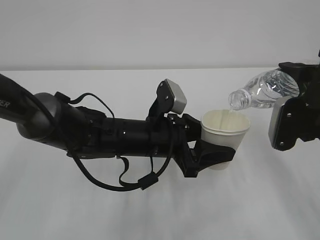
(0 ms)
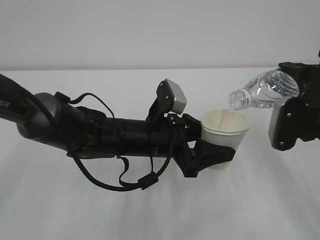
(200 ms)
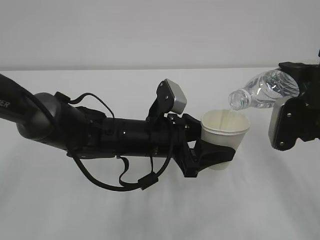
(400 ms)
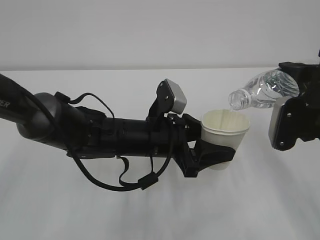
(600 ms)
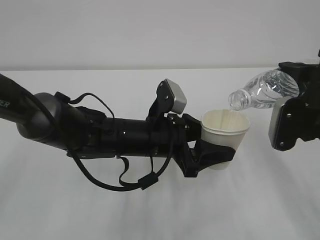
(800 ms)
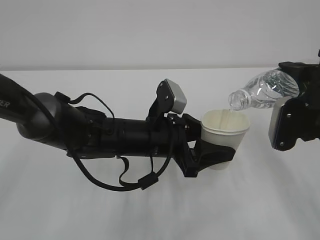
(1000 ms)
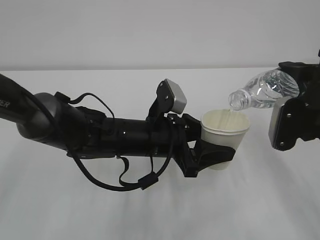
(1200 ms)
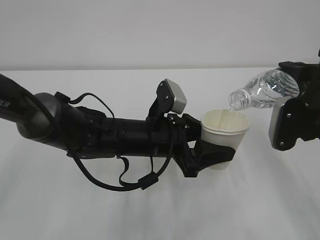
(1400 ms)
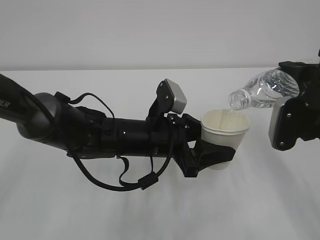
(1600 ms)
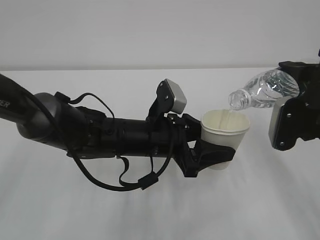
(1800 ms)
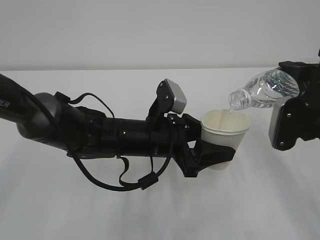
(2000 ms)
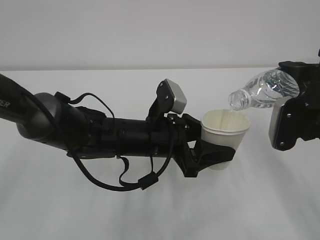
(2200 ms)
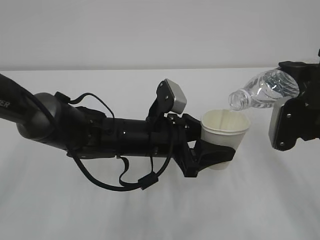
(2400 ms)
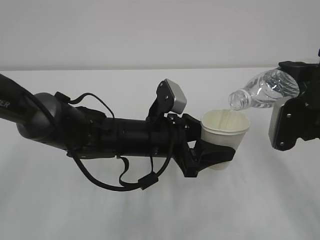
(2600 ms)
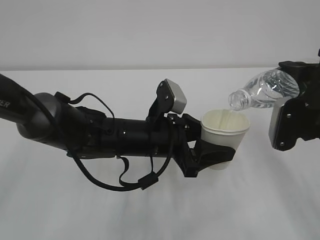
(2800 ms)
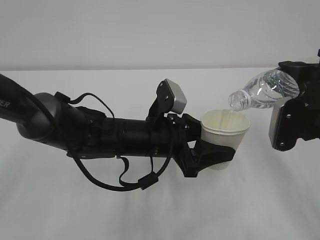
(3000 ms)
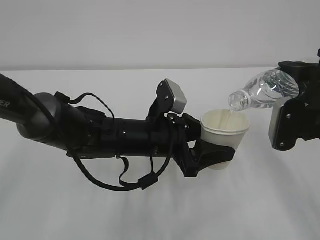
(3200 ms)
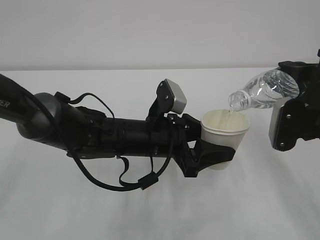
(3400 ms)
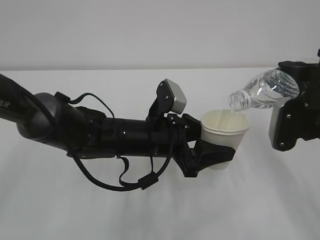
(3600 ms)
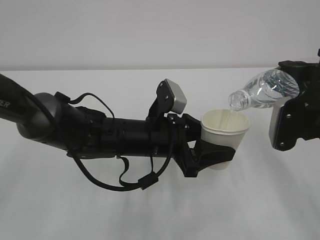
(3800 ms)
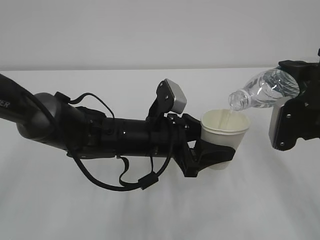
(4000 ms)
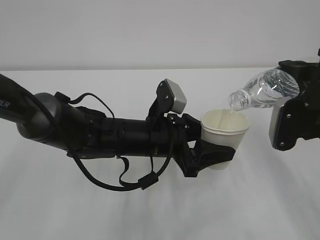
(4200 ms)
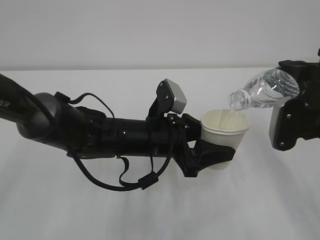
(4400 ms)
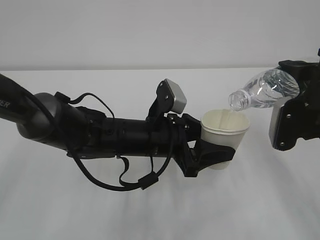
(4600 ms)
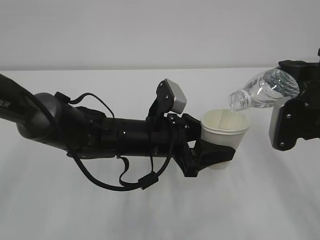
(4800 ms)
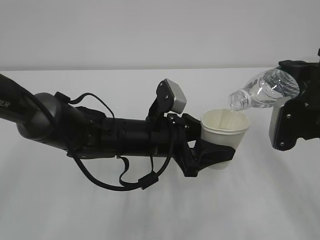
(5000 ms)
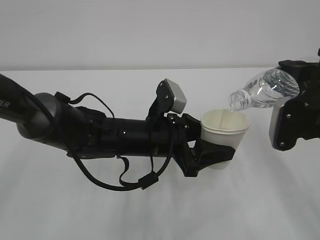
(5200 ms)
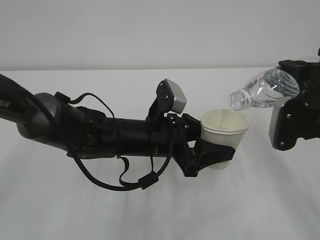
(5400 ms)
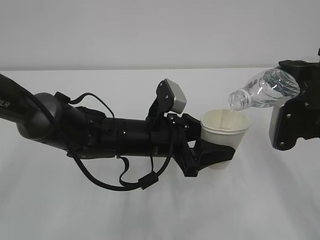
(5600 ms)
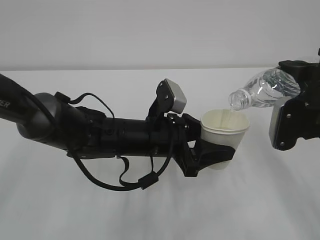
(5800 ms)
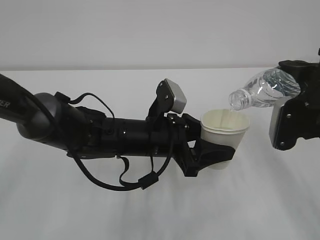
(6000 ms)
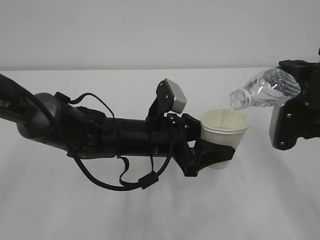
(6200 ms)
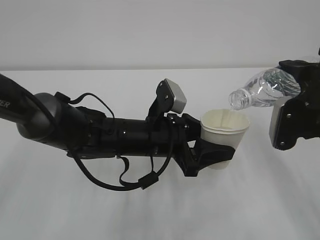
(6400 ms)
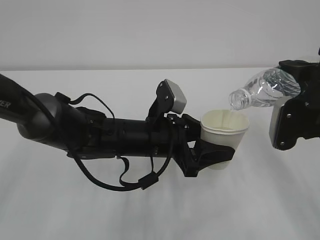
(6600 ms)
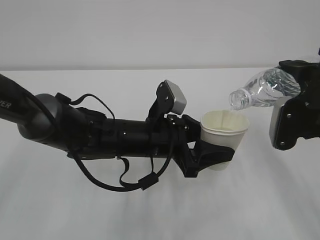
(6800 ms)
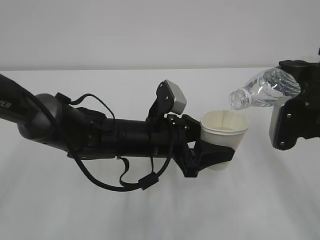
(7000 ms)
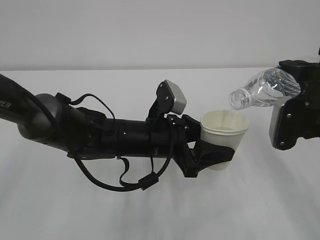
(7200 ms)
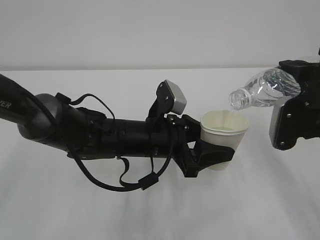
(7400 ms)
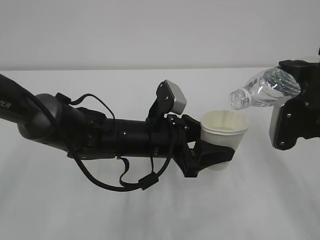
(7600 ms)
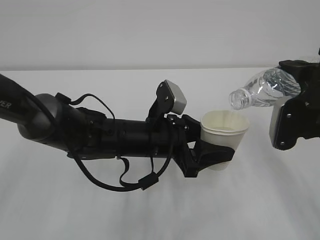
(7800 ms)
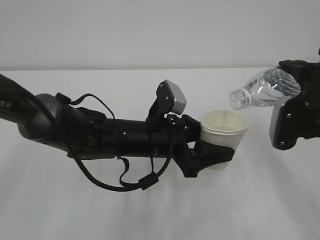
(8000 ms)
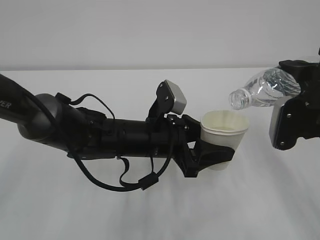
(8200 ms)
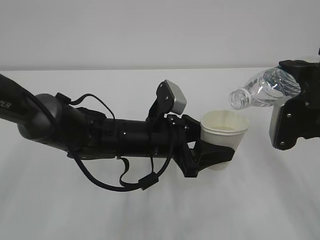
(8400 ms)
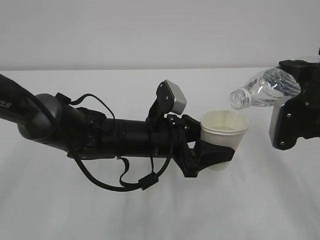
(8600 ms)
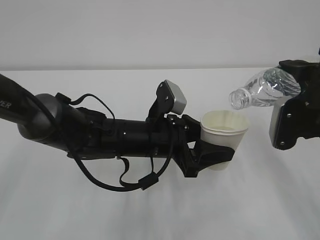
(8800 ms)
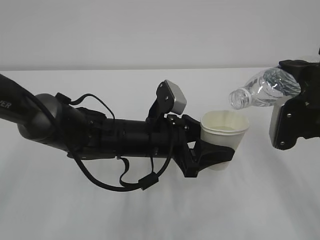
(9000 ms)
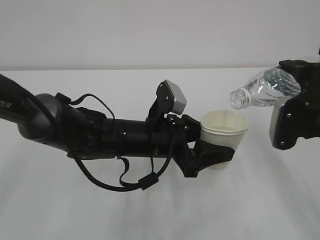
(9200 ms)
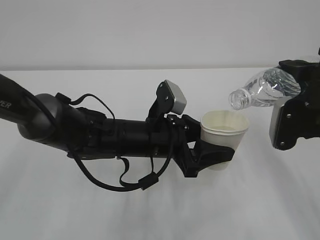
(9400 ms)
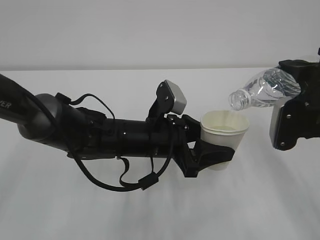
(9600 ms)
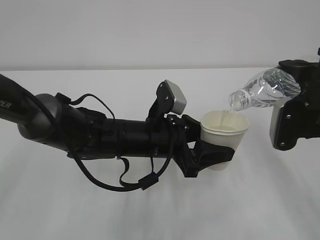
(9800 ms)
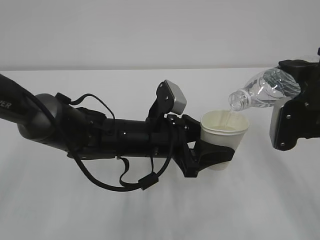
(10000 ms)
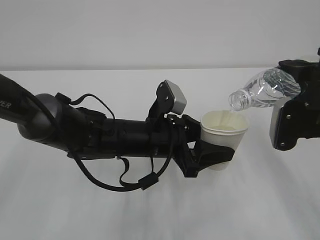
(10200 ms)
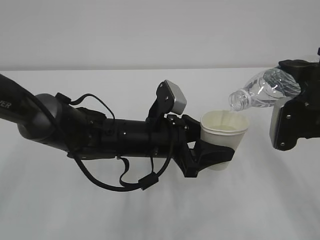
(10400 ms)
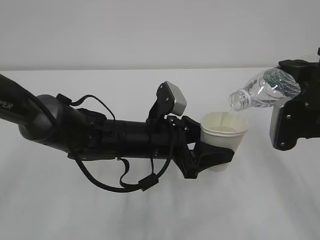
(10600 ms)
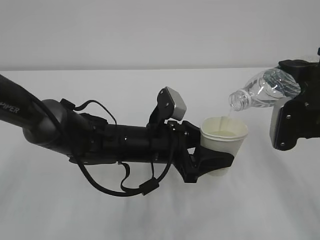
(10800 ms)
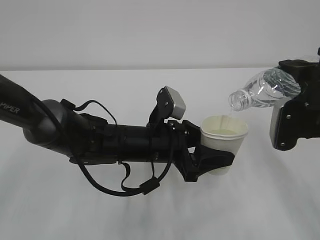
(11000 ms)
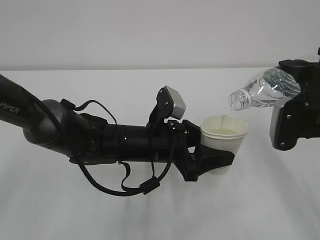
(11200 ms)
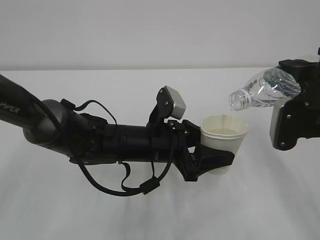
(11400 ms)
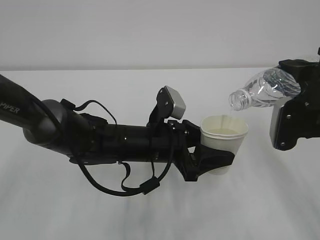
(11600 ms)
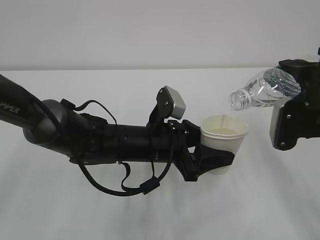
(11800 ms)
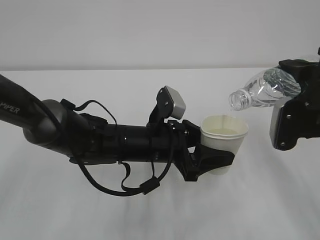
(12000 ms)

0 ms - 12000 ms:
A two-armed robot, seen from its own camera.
0 ms - 12000 ms: Both grippers stay put.

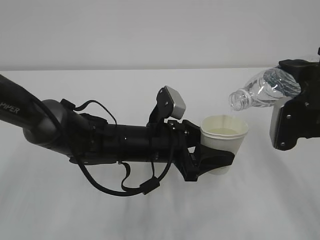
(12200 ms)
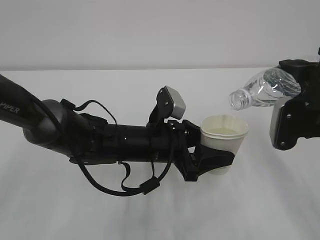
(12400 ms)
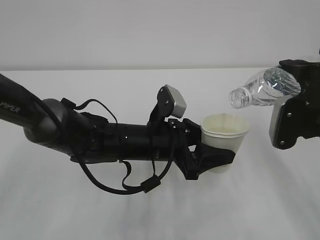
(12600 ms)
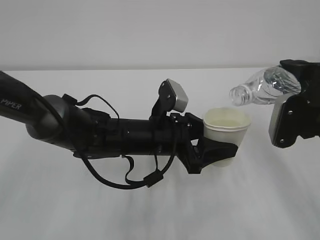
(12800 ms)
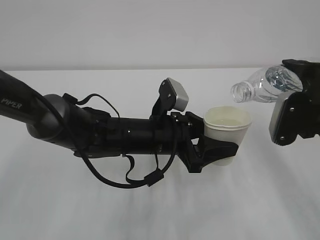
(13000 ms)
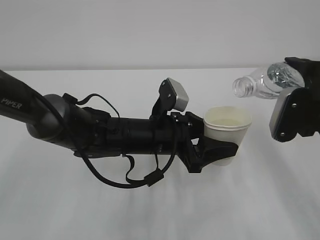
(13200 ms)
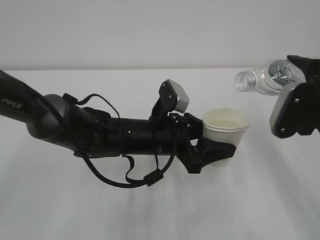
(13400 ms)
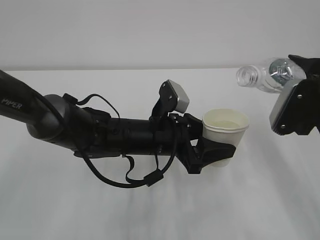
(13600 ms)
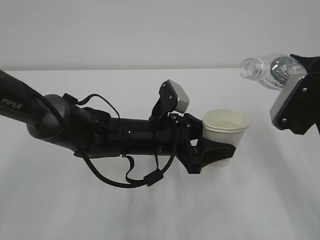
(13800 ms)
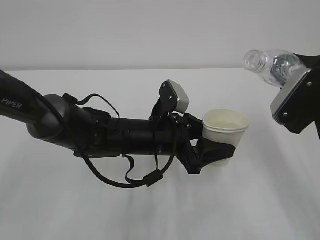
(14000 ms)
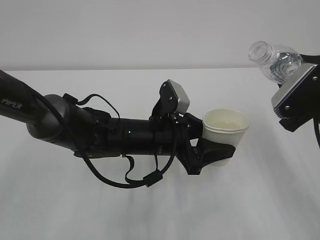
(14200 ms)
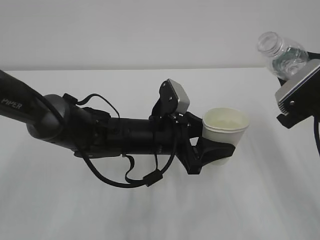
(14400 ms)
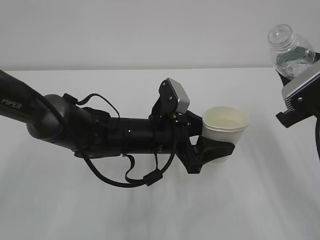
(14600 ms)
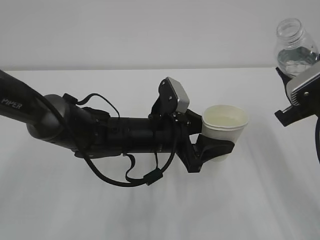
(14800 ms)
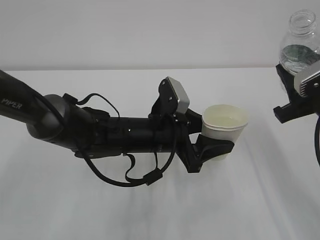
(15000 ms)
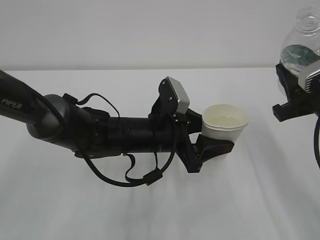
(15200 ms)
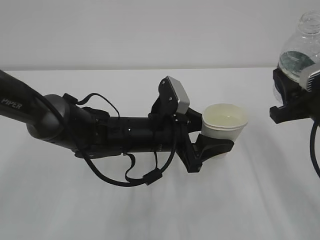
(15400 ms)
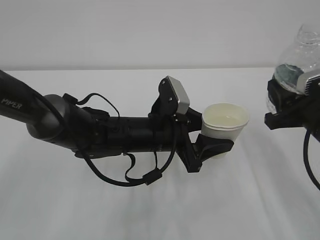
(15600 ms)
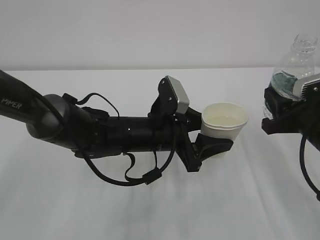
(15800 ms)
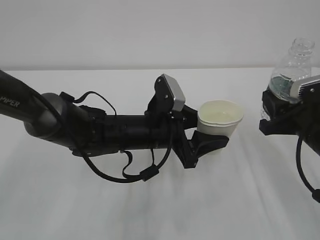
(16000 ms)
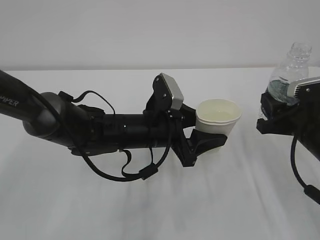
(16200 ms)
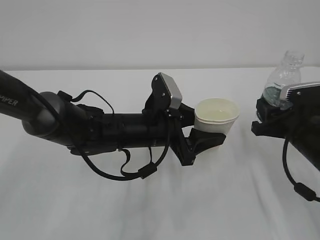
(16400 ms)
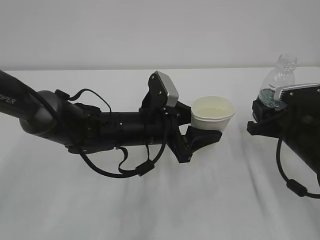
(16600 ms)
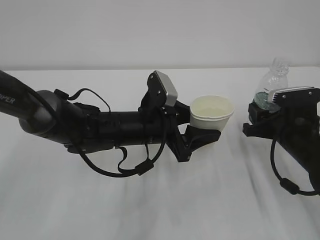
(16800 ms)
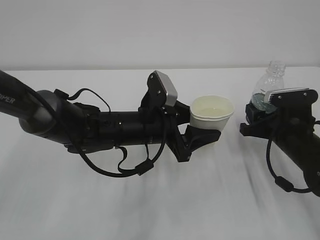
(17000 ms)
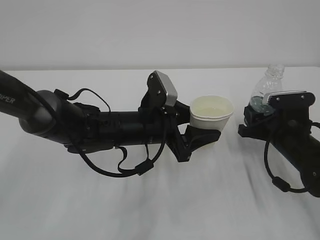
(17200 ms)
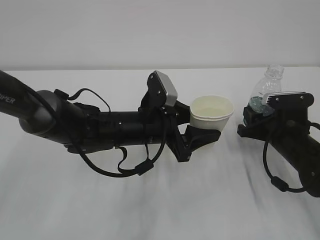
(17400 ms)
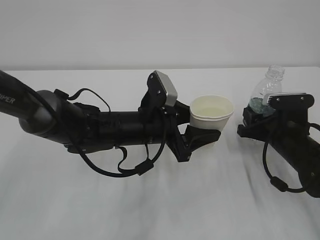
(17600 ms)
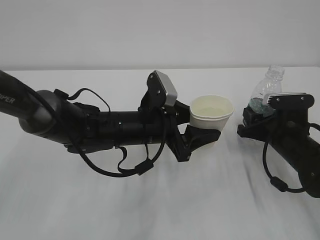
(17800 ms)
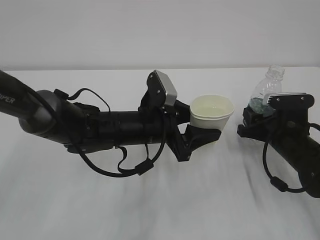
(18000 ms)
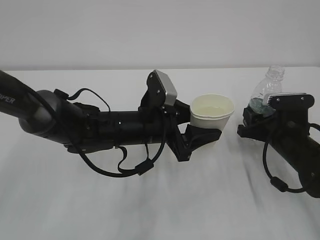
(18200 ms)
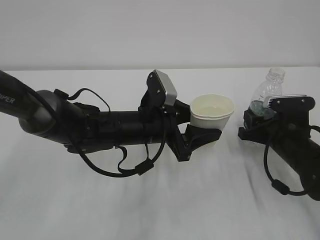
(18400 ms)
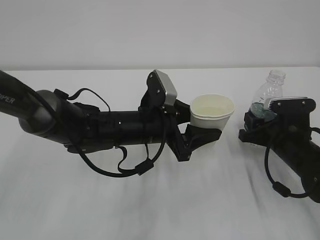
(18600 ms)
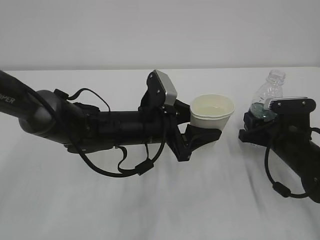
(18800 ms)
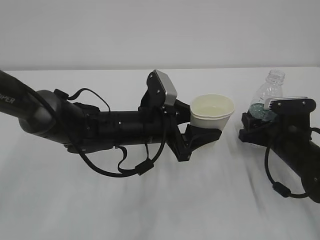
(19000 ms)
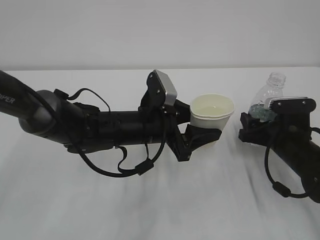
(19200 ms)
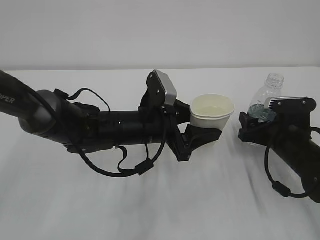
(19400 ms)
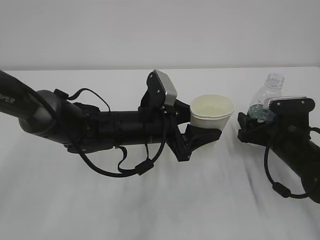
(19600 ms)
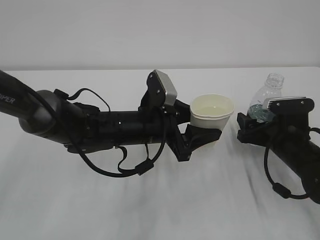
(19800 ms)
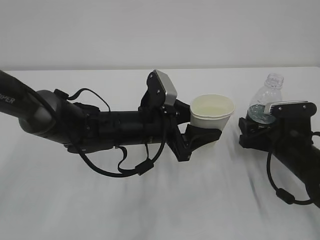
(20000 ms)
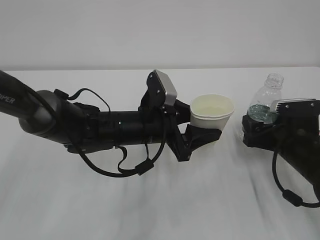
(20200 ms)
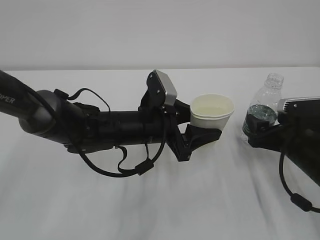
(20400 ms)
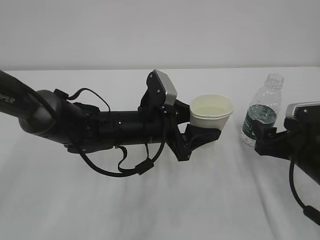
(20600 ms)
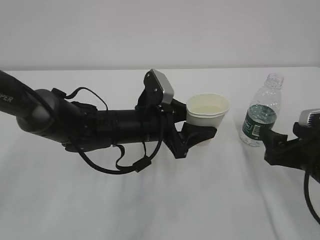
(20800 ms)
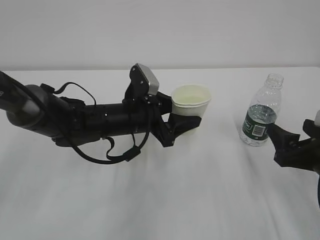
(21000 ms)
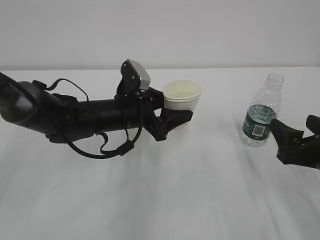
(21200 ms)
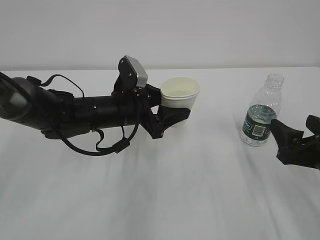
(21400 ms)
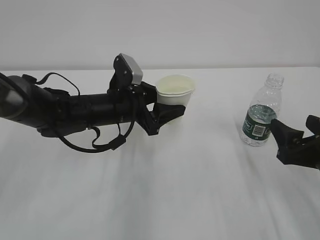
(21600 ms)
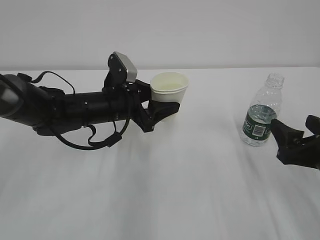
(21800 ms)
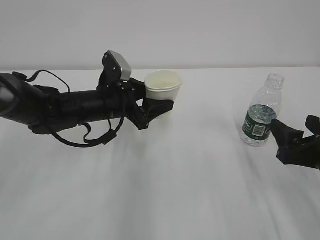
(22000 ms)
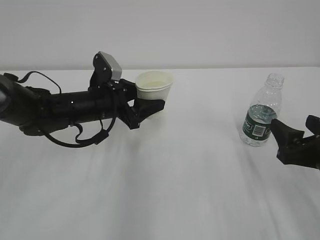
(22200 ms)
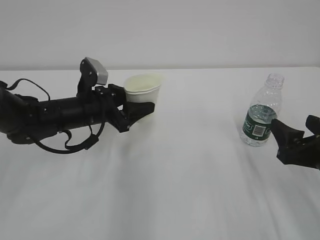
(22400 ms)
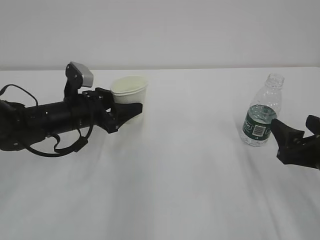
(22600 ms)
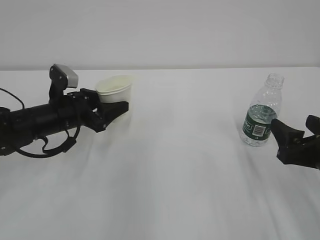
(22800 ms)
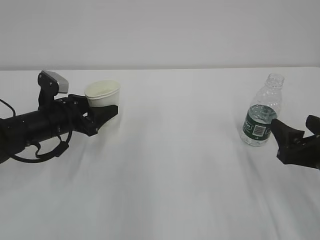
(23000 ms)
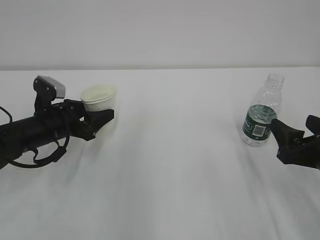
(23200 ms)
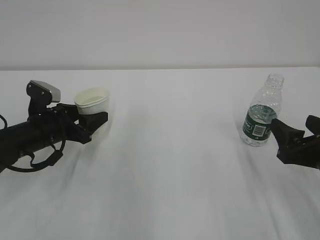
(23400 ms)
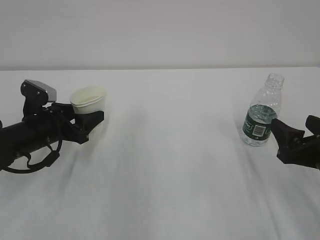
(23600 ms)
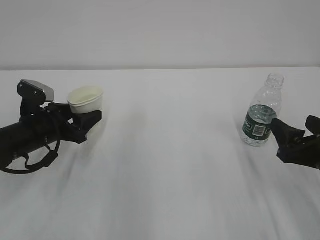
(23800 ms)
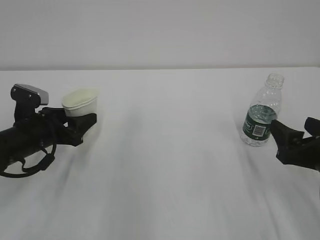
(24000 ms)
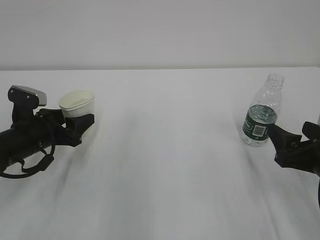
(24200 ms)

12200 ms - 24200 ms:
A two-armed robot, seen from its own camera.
15200 ms - 16600 ms: The right gripper goes about 10 cm downward.
16600 ms - 18200 ms: The grippers make only small movements.
18200 ms - 19800 ms: The right gripper opens up.
19800 ms - 21200 ms: The left gripper moves about 5 cm. The right gripper moves backward and upward, about 15 cm.
21200 ms - 22600 ms: The left gripper shifts about 10 cm to the left.
22600 ms - 24200 ms: The left gripper moves to the left, approximately 5 cm.
